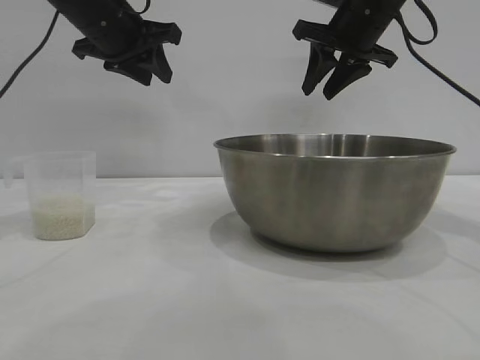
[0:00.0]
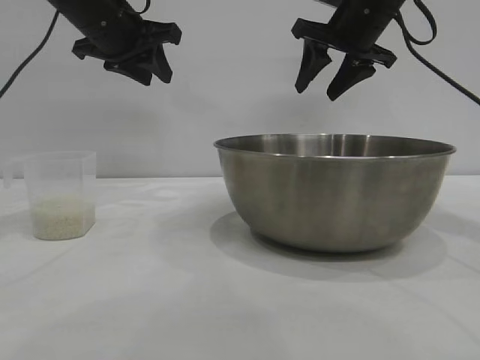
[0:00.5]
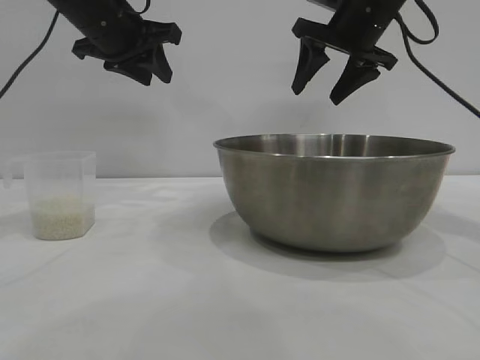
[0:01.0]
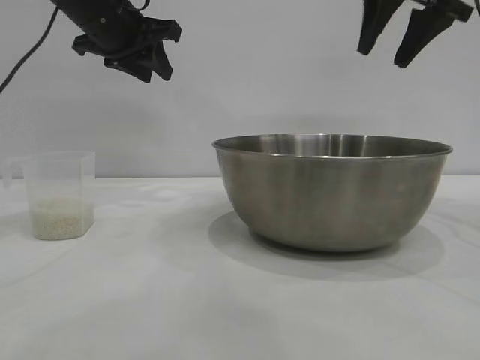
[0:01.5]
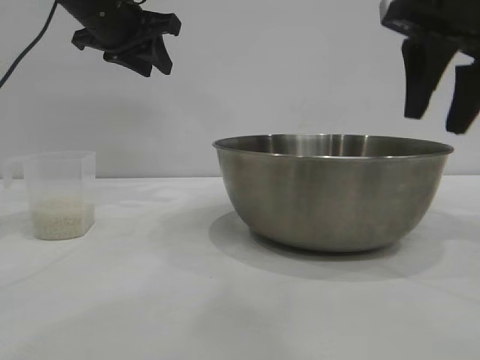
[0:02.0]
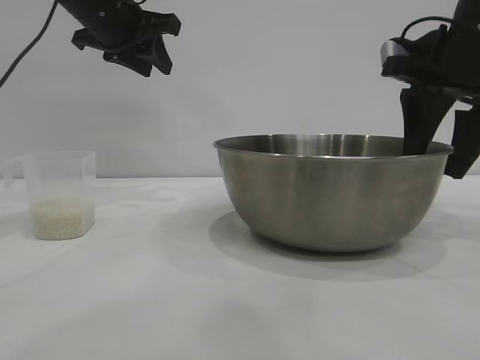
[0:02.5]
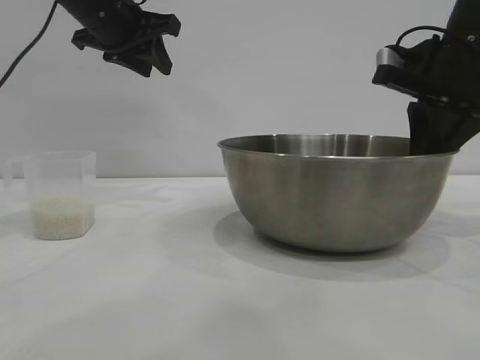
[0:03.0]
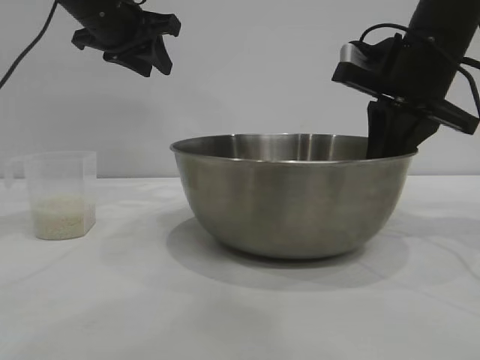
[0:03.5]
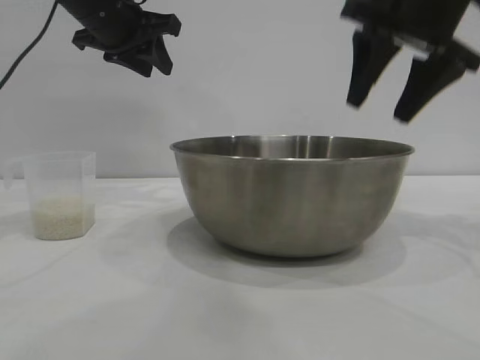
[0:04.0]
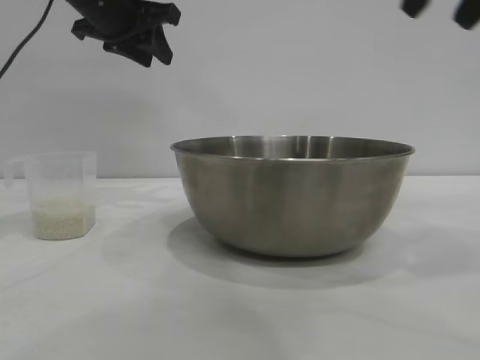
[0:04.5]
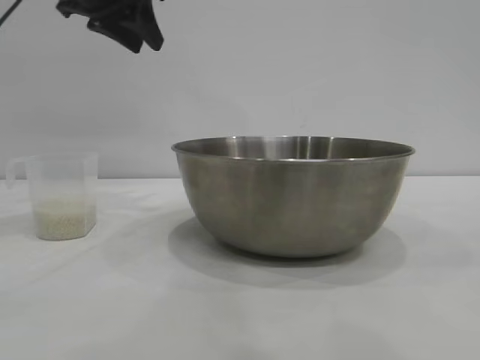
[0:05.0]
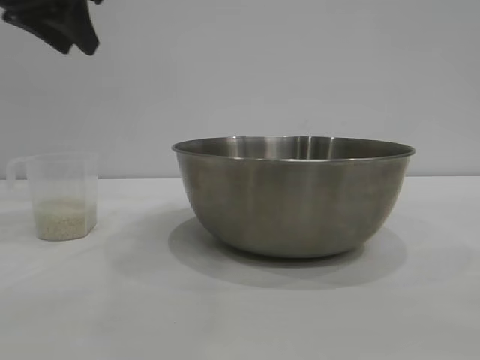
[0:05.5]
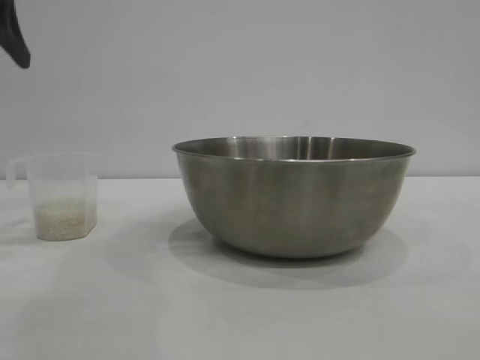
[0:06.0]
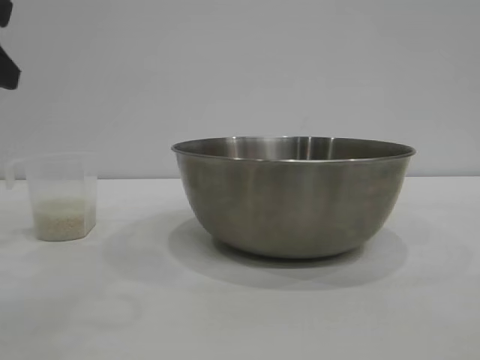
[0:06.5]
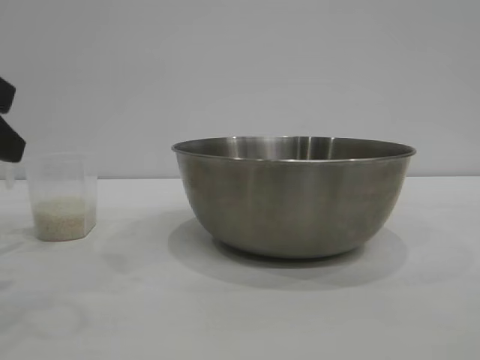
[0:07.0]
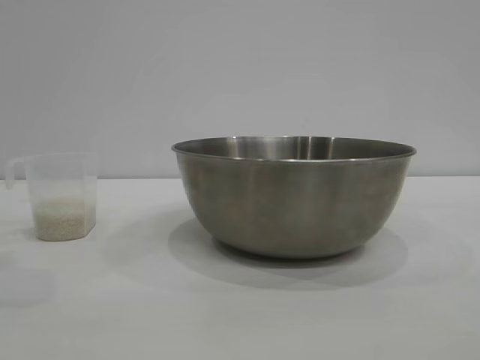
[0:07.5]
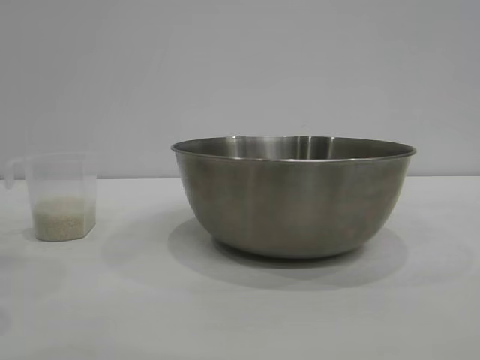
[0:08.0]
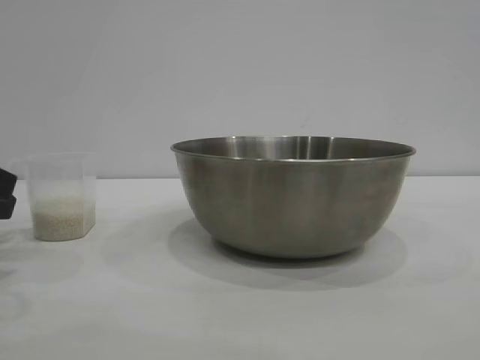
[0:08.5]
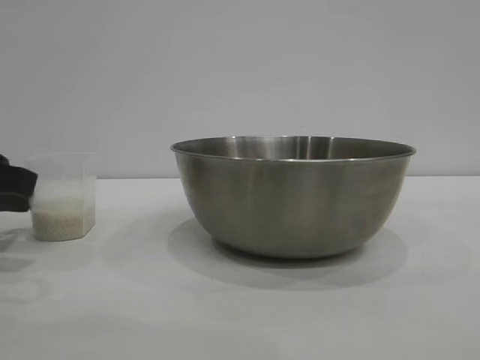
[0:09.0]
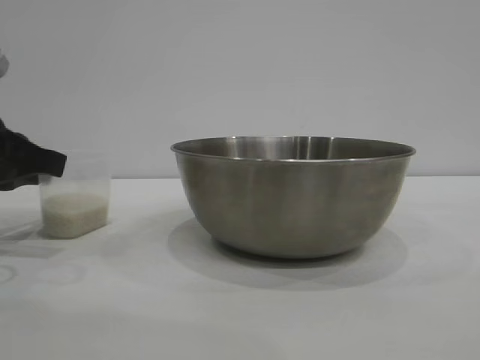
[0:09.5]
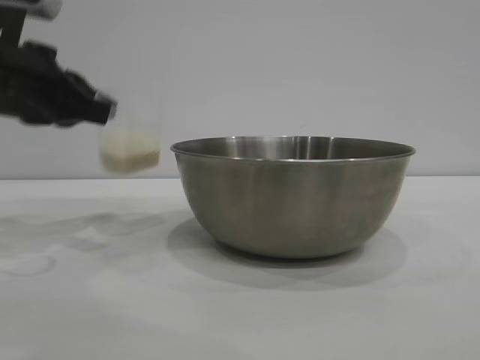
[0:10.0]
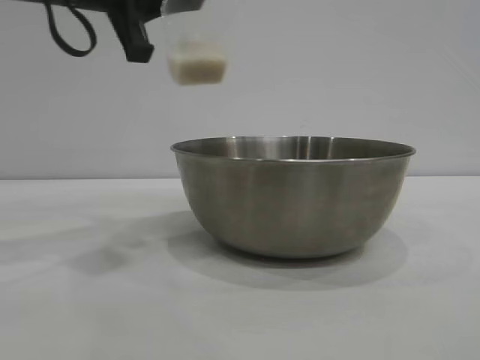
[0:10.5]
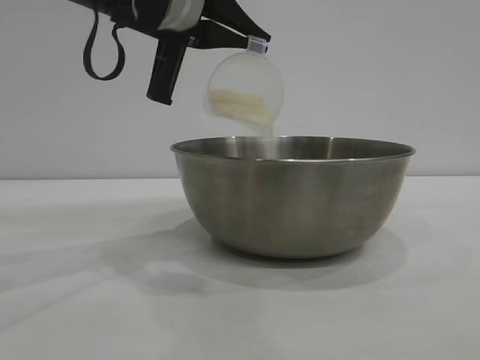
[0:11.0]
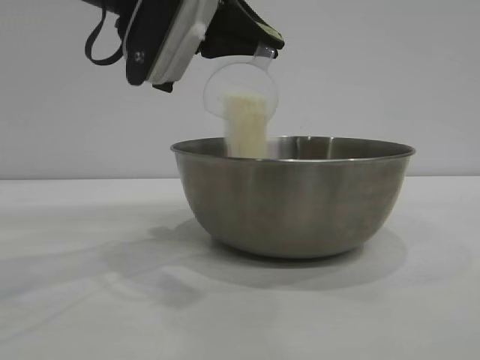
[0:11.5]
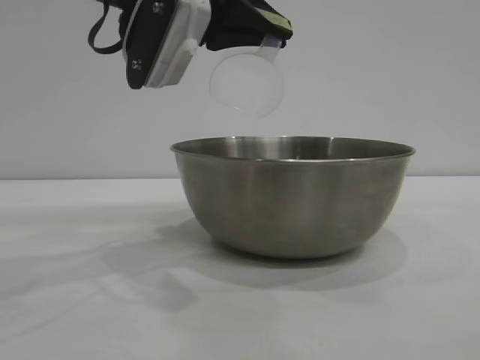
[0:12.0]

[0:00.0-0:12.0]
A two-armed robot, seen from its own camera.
Task of the whole recording: the right gripper grasp the rice container and place it in the center of the table, the left gripper grasp the rice scoop and pour the rice into the rice container.
Step, 0:00.0 to 0:04.0: Move the bowl to the center of view with the right gripper.
Step, 0:04.5 to 0:09.5: Pick up the cup with rice in it with the left gripper.

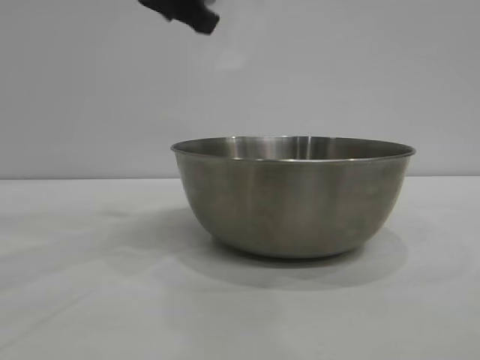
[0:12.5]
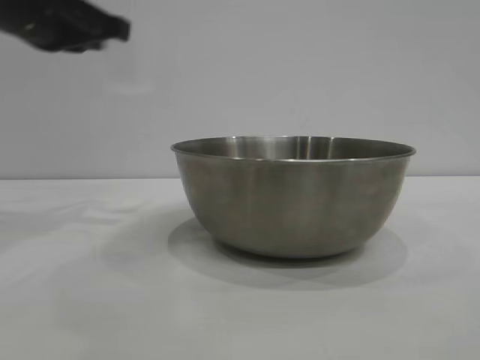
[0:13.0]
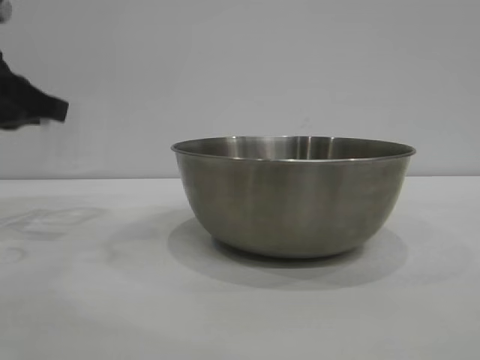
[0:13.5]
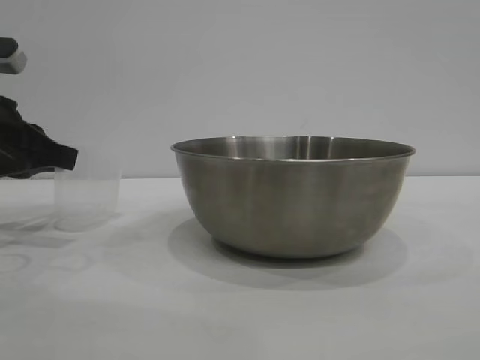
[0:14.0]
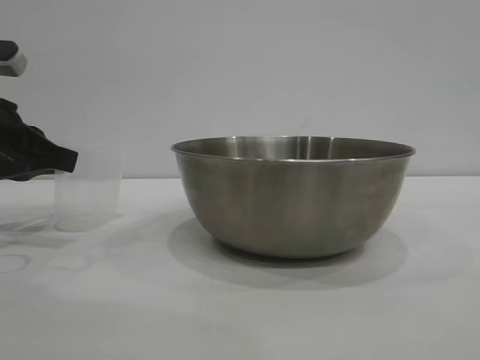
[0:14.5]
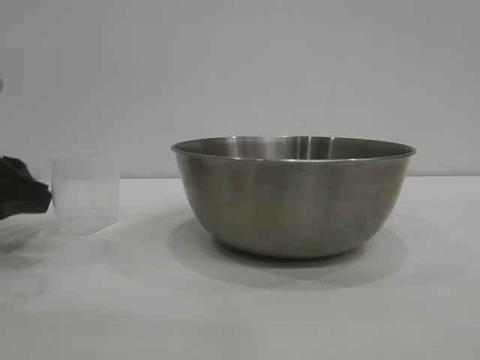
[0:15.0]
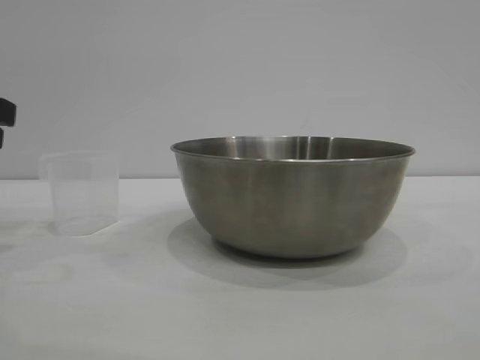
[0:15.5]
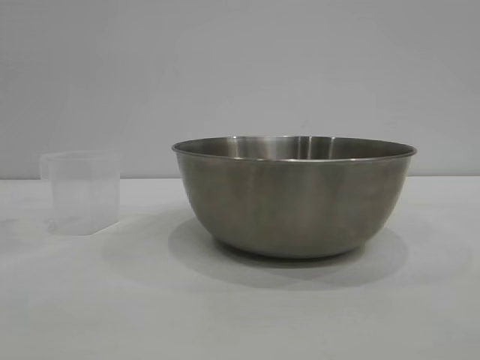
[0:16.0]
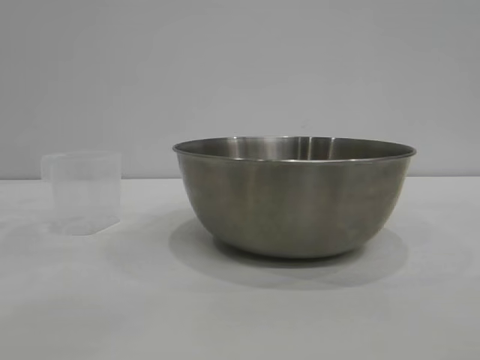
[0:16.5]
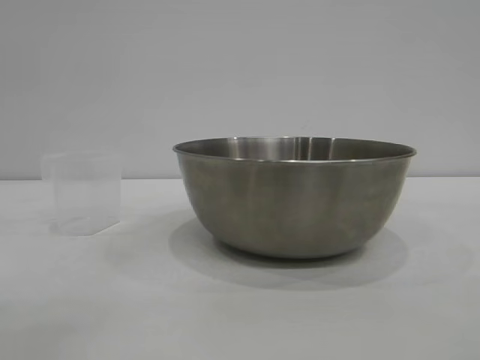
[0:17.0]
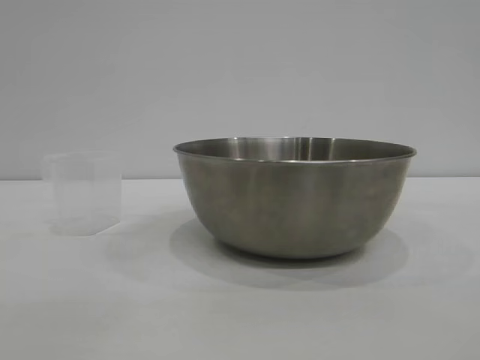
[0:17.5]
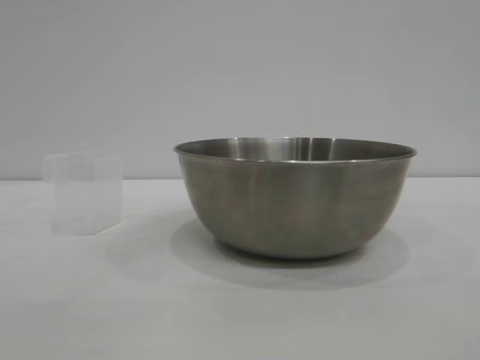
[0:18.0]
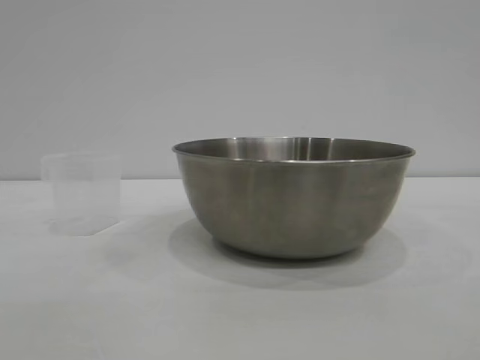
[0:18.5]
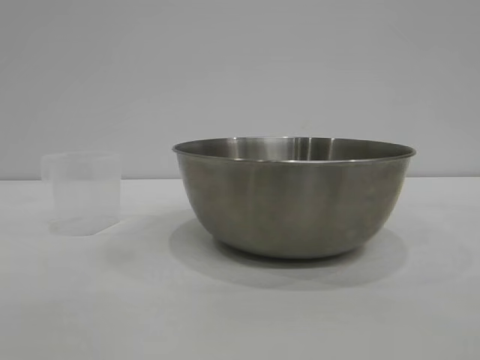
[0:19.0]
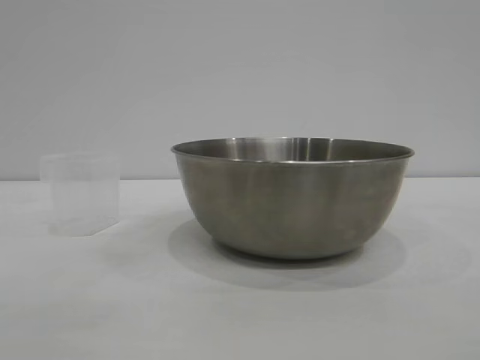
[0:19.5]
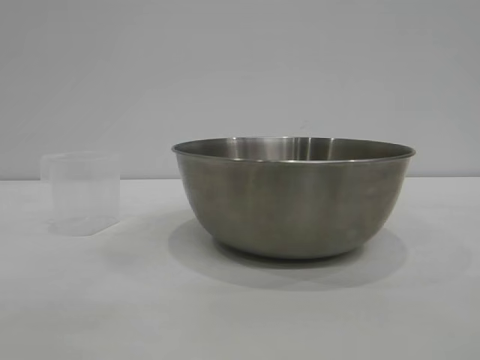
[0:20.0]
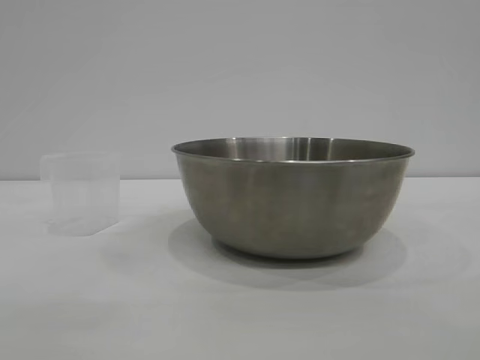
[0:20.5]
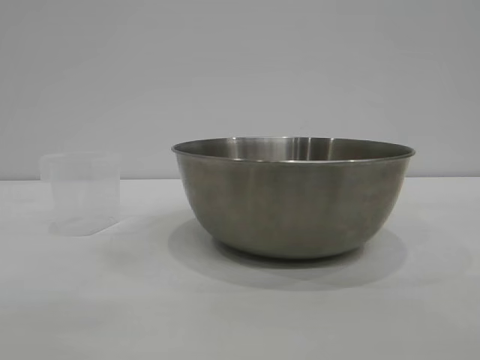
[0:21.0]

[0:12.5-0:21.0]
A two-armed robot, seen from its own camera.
Task of the whole recording: the right gripper grasp the rice container and place it in the center of the table, the left gripper grasp the rice scoop and pour the rice into the rice container.
Step, 0:13.0 to 0:15.0: Place the cup on the table with the left gripper.

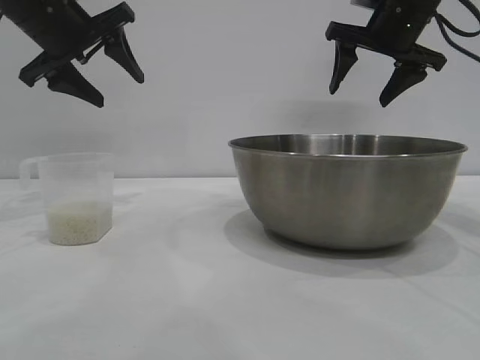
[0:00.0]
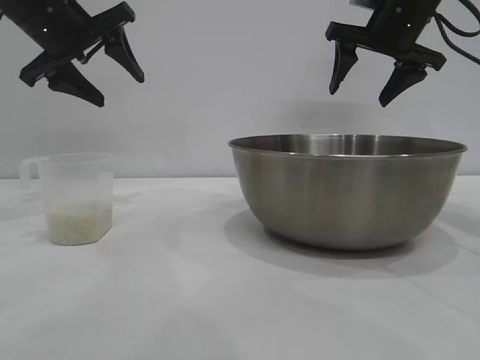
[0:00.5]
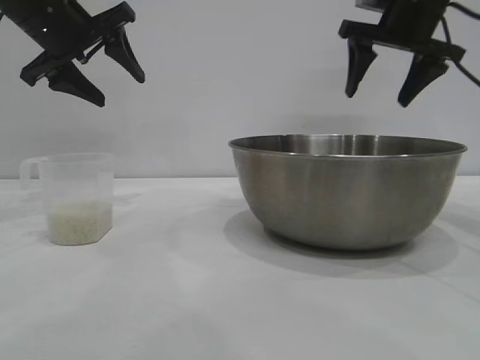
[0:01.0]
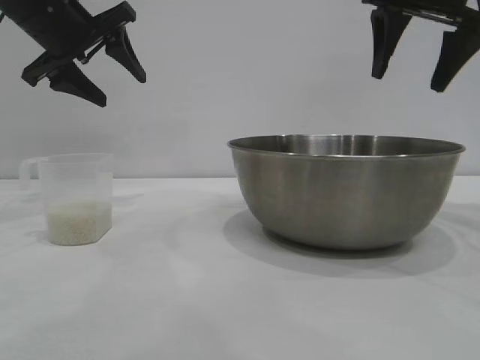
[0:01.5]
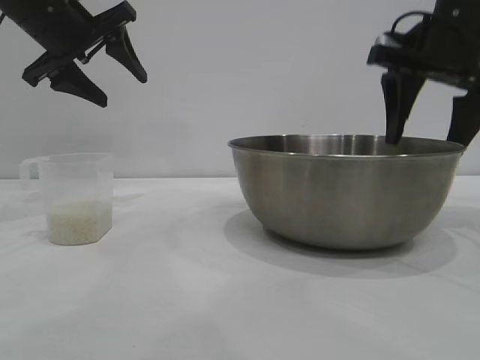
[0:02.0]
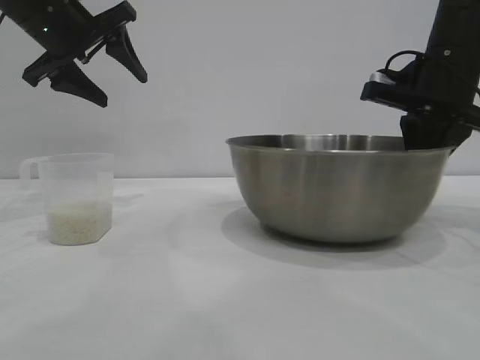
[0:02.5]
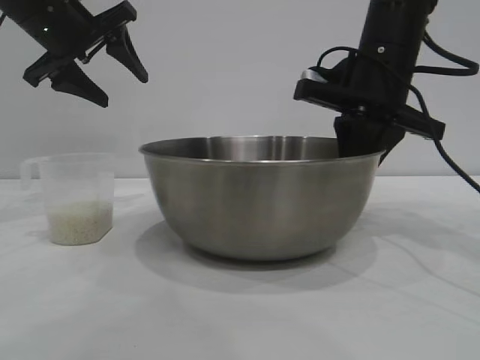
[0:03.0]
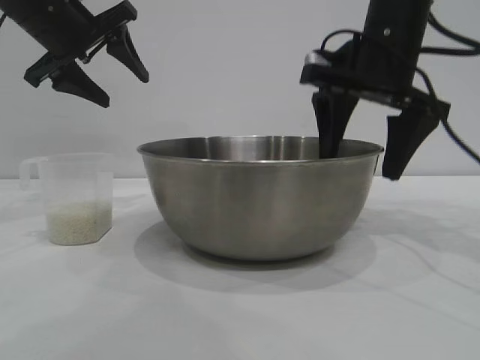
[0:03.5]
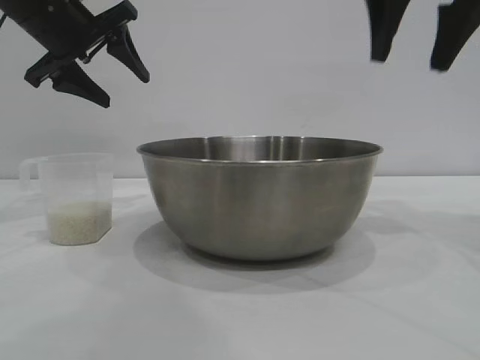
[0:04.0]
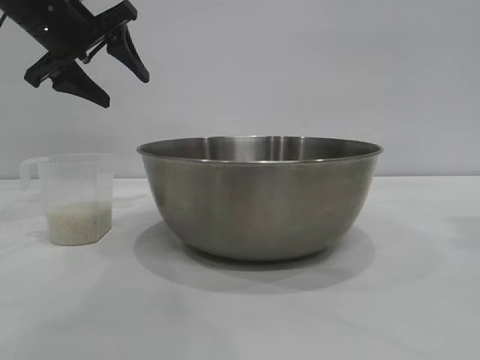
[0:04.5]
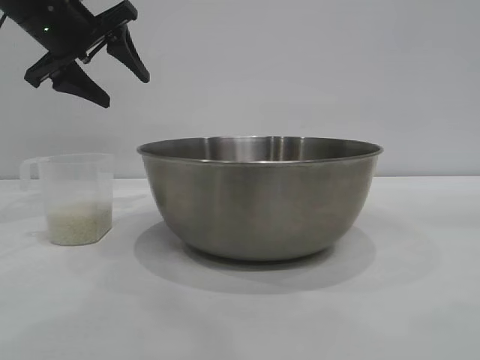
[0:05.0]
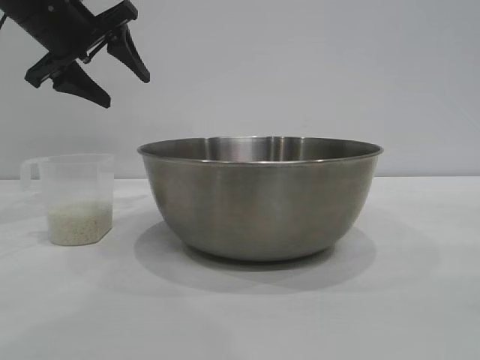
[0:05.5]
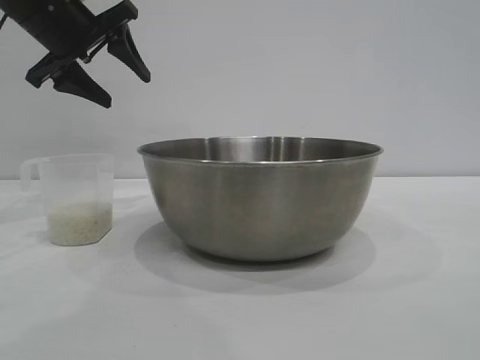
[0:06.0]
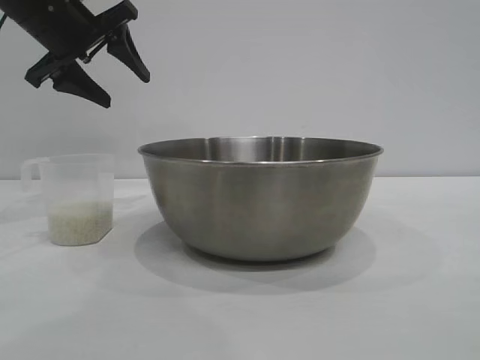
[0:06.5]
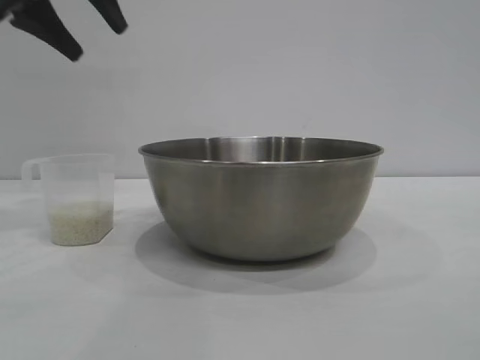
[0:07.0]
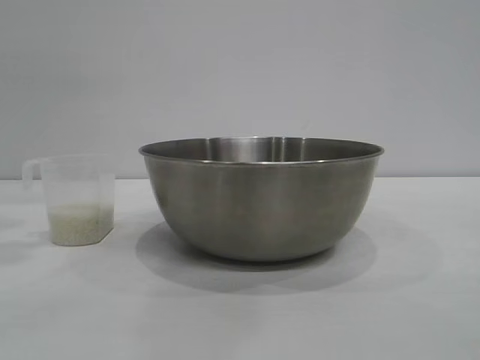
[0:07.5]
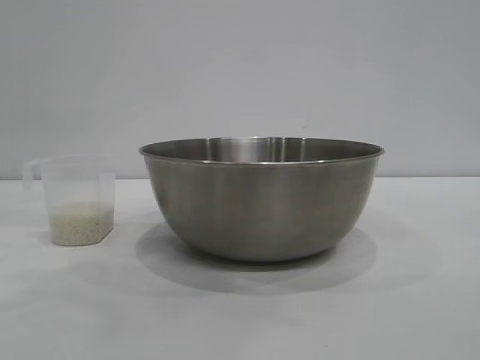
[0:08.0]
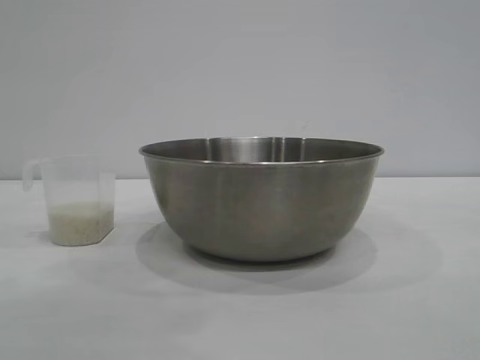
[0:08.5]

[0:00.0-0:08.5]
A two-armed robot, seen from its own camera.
Task of the whole recording: the right gripper grasp the rice container and place it in the center of the table, the left gripper grasp the rice scoop and pour the rice into the rice container.
Step, 0:00.0 to 0:03.5: Move the bowl to the center of view with the right gripper.
